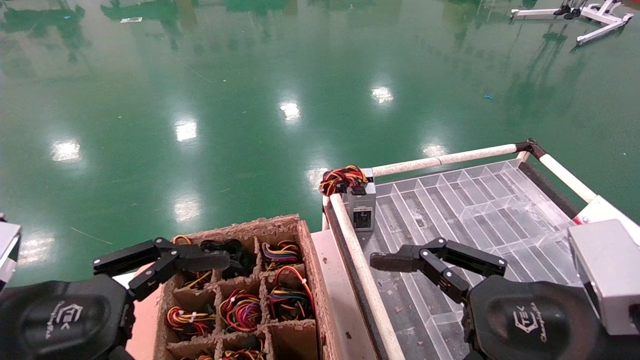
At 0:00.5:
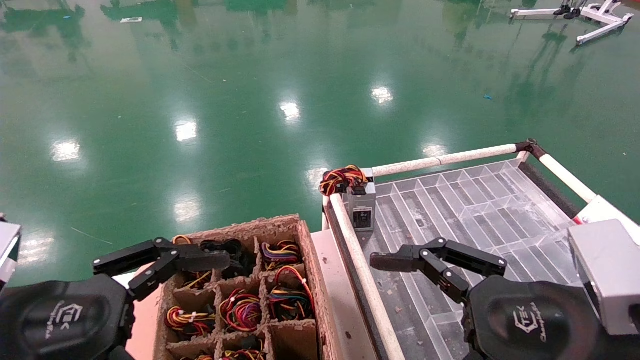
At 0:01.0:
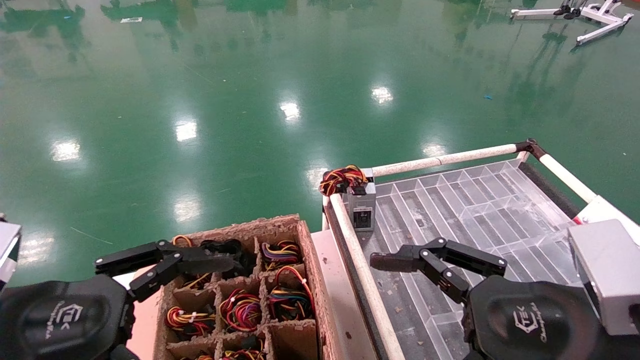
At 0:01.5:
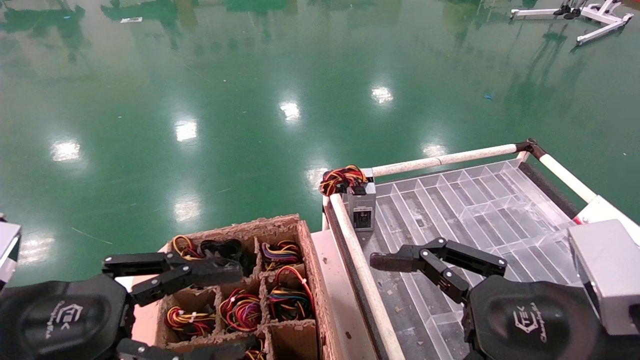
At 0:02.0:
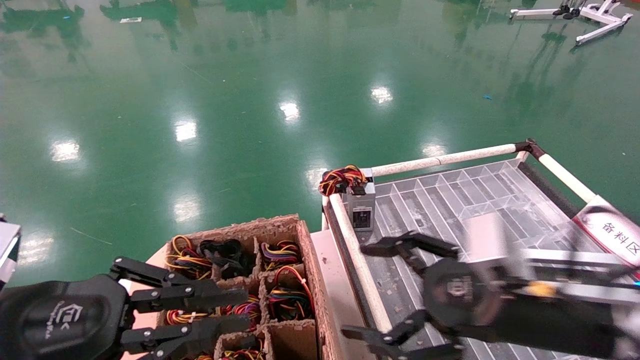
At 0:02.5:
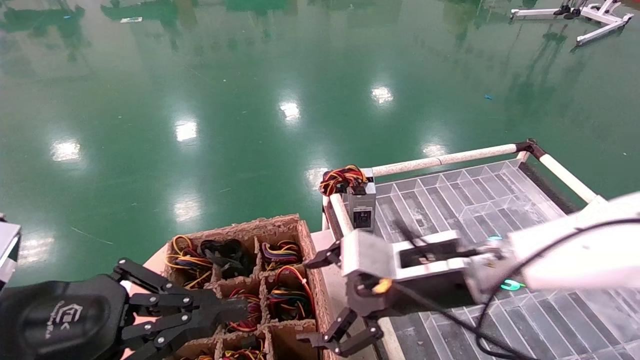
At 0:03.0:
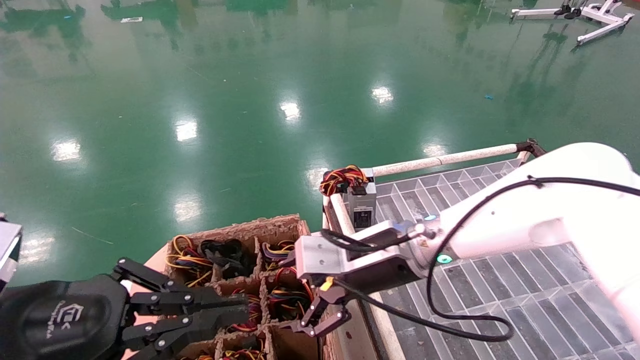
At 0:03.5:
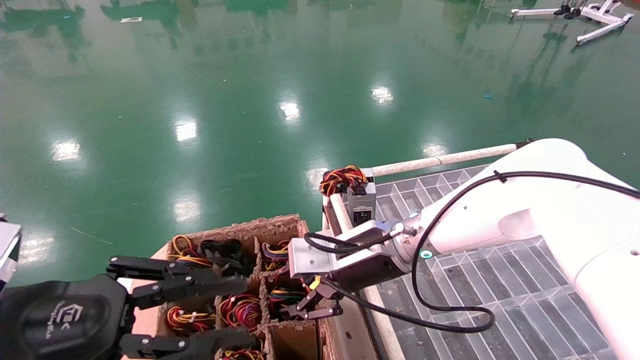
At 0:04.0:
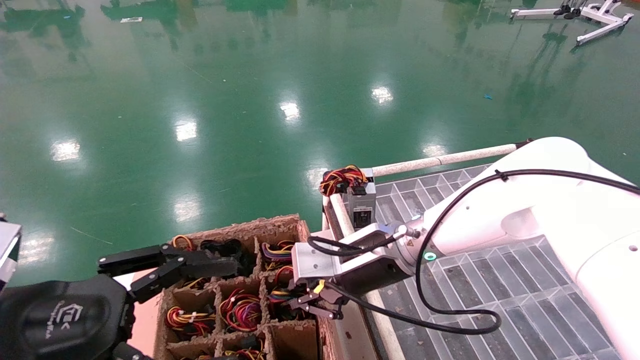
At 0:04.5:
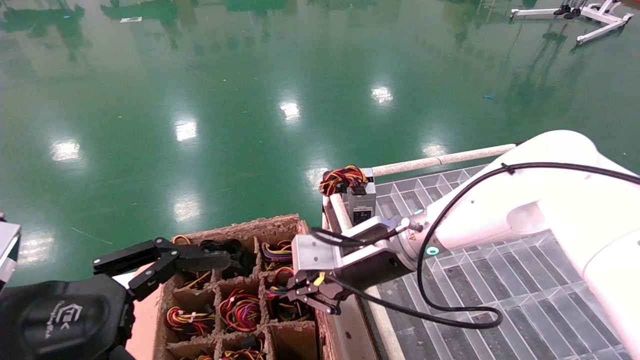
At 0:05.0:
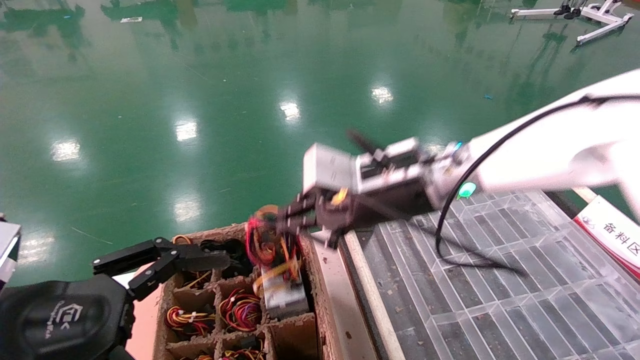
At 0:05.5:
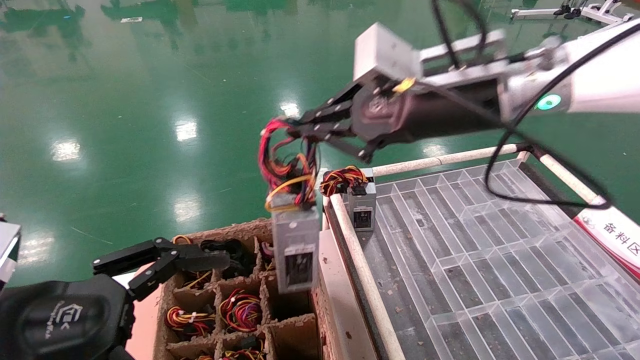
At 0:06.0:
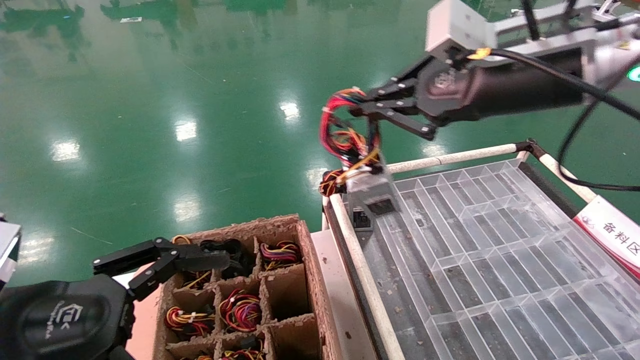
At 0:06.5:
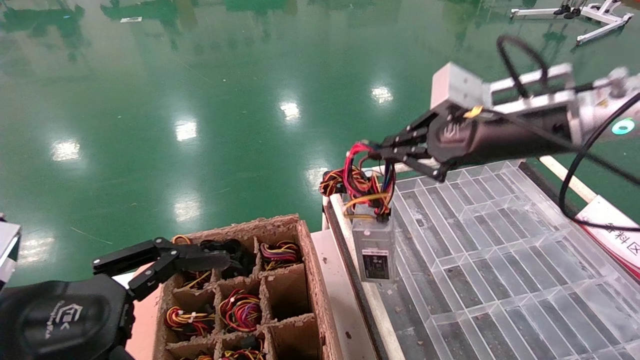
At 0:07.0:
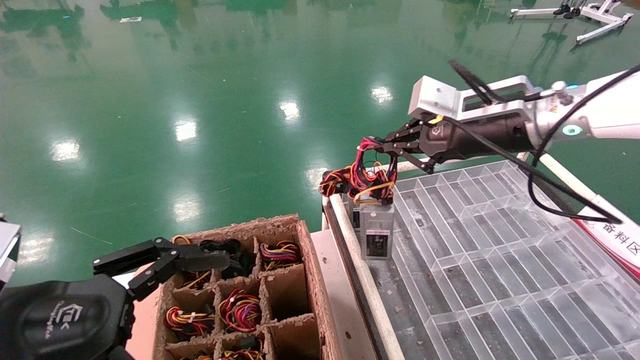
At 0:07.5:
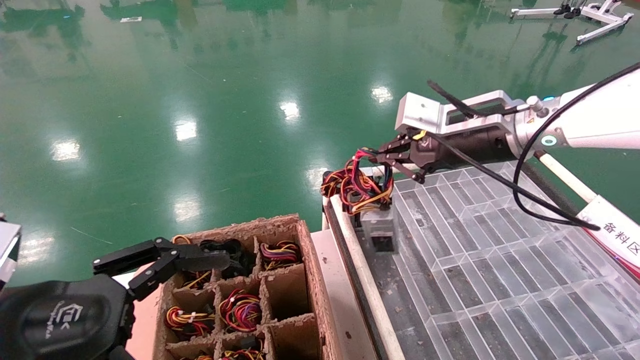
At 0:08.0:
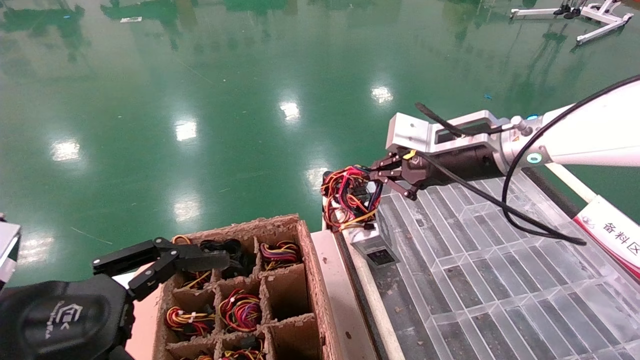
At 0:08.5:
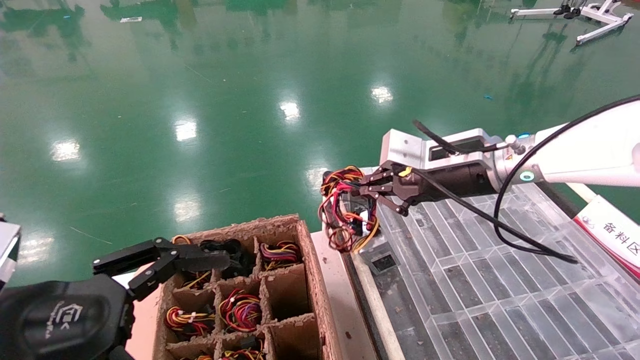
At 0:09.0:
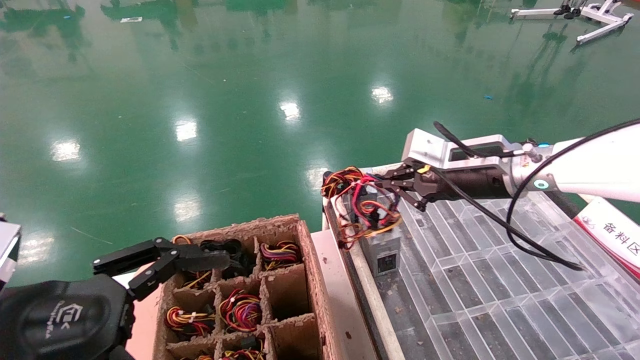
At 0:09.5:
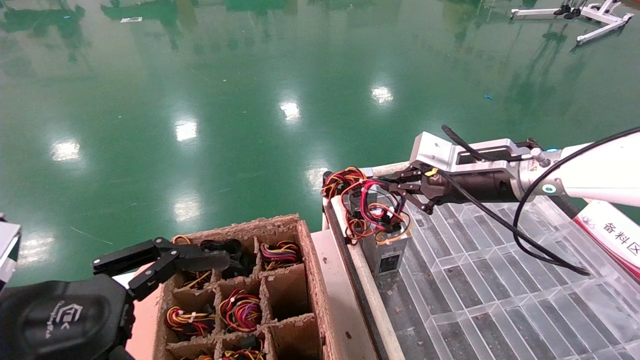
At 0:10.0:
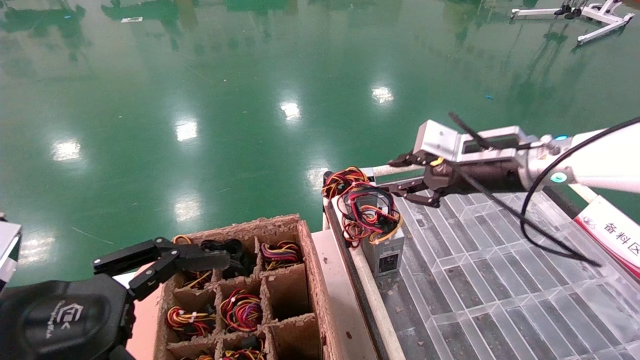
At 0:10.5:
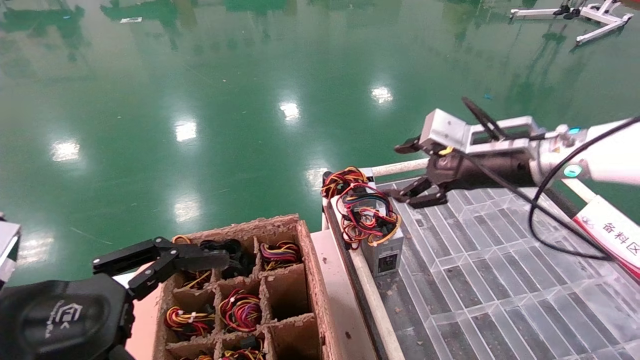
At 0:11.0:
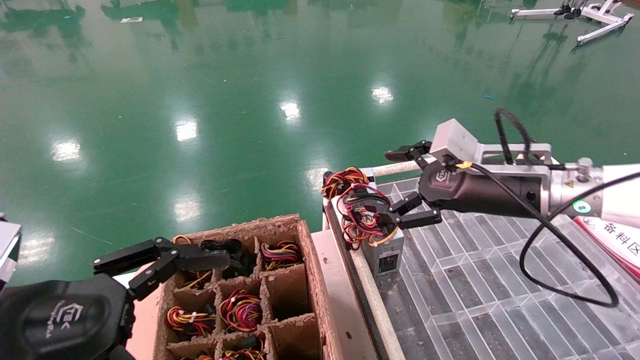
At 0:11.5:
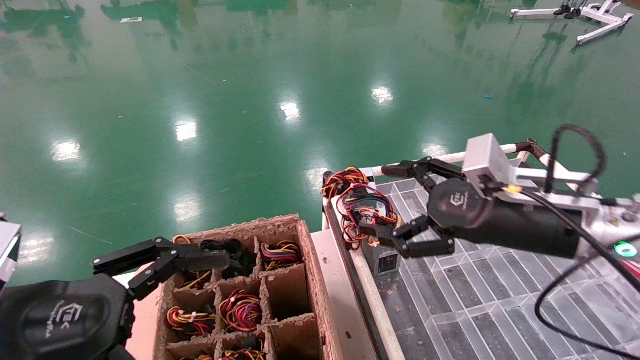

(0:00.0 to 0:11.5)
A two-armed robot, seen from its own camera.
Step, 0:01.5 - 0:04.0: Grab and lift the power supply from the large box.
Step, 0:04.5 - 0:09.5: Place the power supply on the operating table.
0:00.0 - 0:02.0: The left gripper closes its fingers. The right gripper moves forward, about 5 cm.
0:02.0 - 0:04.0: The left gripper opens up, while the right gripper heads to the left and forward, covering some 20 cm, and closes its fingers.
0:04.0 - 0:06.0: The right gripper shifts approximately 25 cm upward and to the right.
0:06.0 - 0:07.5: The right gripper is displaced forward and downward by approximately 10 cm.
0:07.5 - 0:09.5: The right gripper heads downward, covering some 5 cm.
0:09.5 - 0:11.5: The right gripper heads backward, covering some 10 cm, and opens its fingers.
